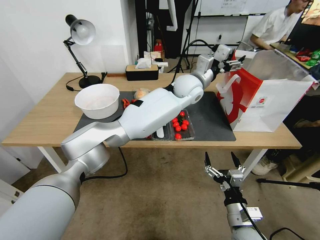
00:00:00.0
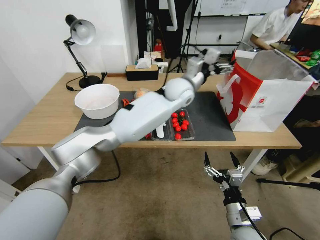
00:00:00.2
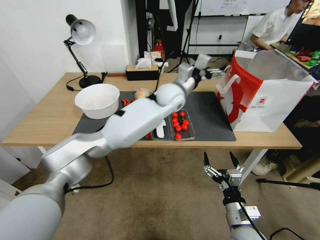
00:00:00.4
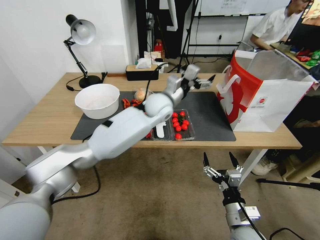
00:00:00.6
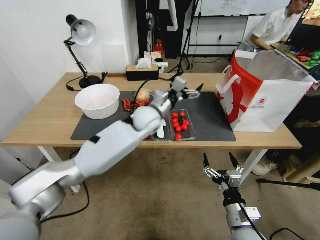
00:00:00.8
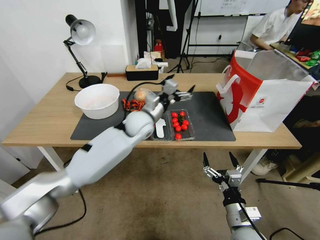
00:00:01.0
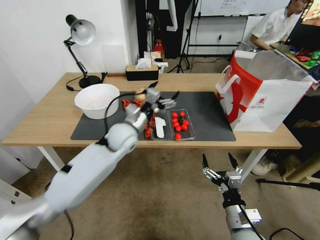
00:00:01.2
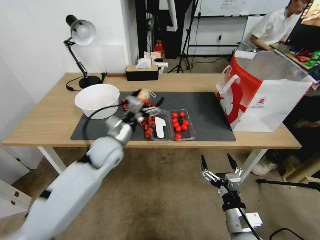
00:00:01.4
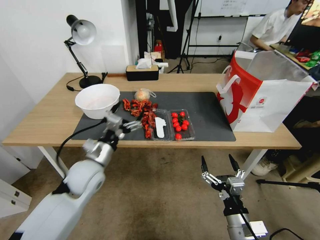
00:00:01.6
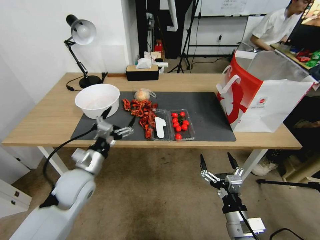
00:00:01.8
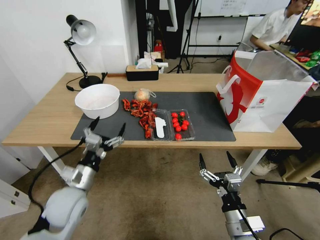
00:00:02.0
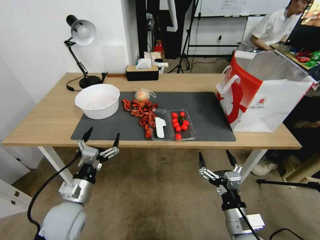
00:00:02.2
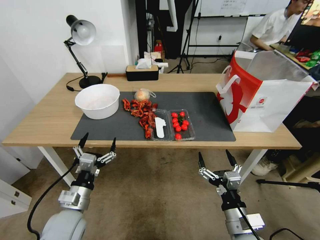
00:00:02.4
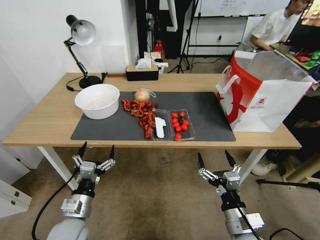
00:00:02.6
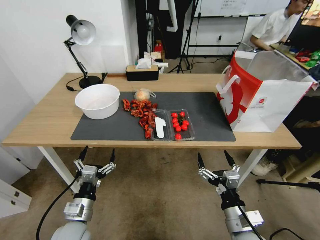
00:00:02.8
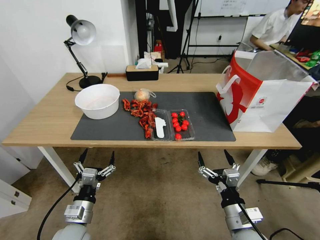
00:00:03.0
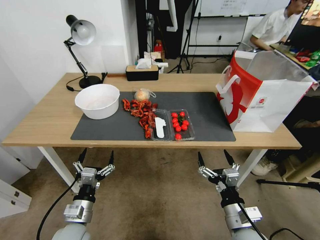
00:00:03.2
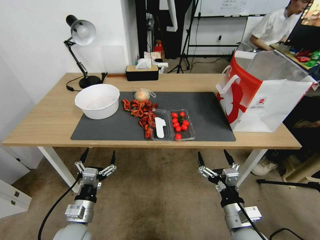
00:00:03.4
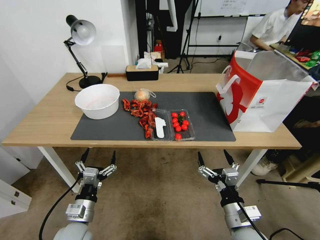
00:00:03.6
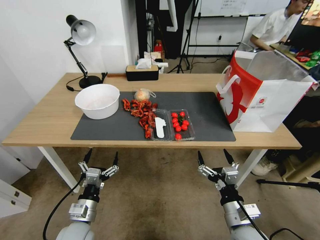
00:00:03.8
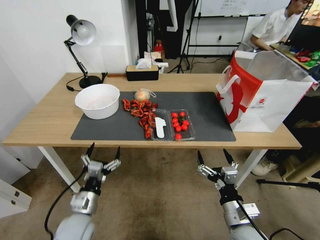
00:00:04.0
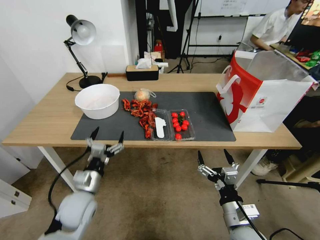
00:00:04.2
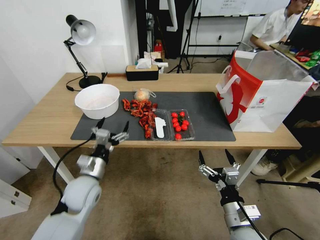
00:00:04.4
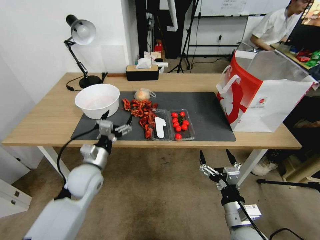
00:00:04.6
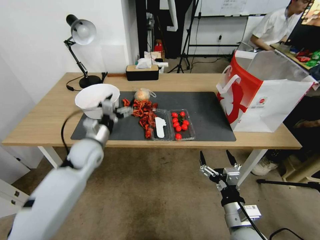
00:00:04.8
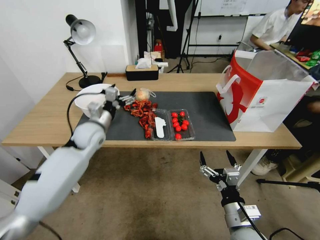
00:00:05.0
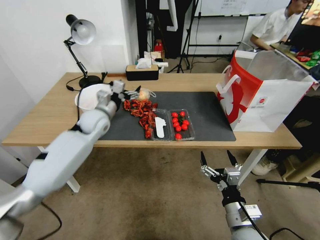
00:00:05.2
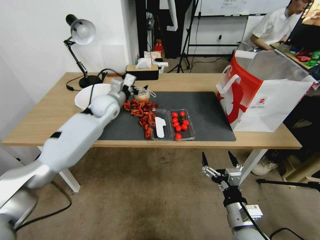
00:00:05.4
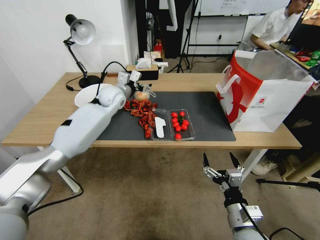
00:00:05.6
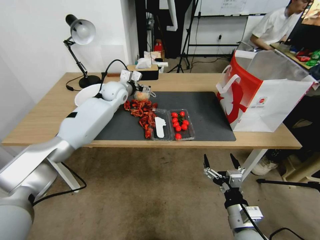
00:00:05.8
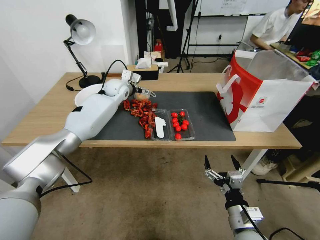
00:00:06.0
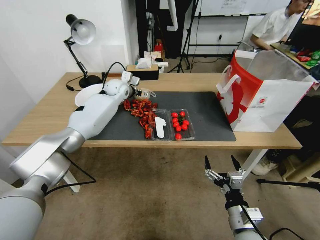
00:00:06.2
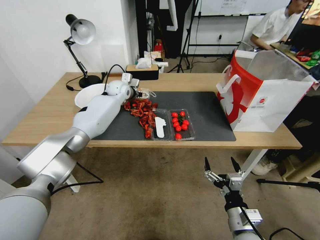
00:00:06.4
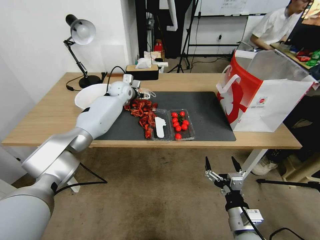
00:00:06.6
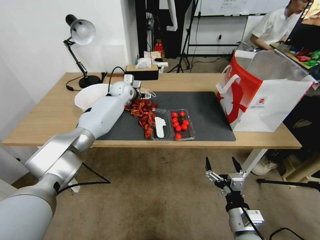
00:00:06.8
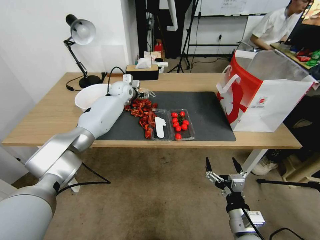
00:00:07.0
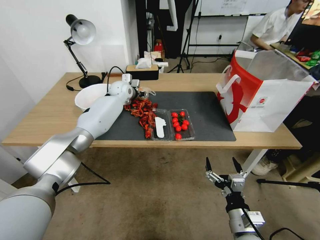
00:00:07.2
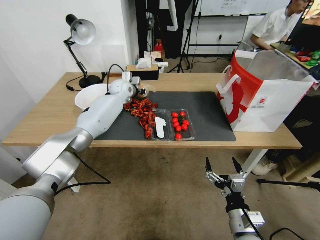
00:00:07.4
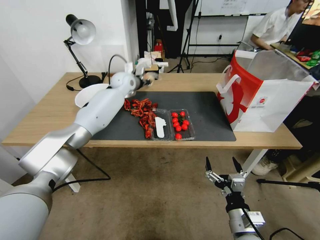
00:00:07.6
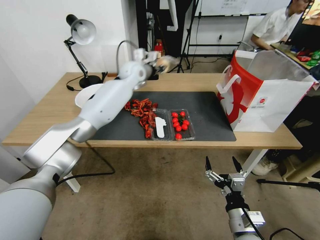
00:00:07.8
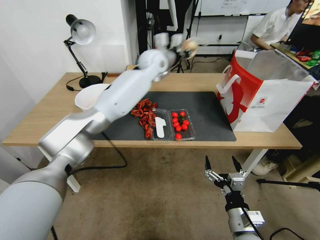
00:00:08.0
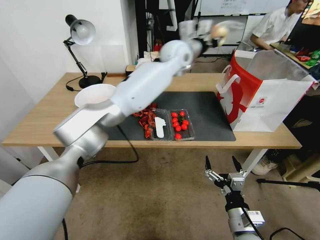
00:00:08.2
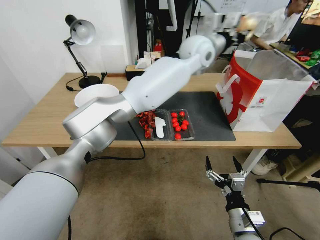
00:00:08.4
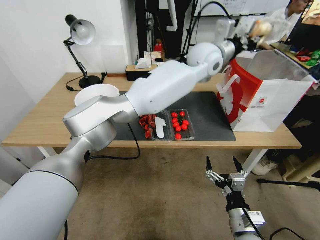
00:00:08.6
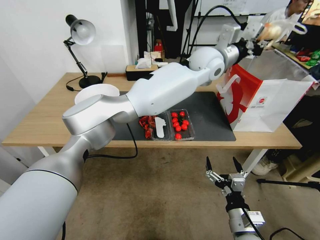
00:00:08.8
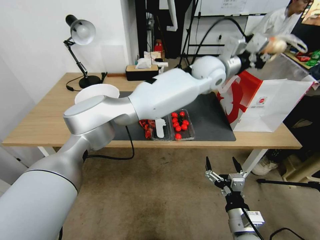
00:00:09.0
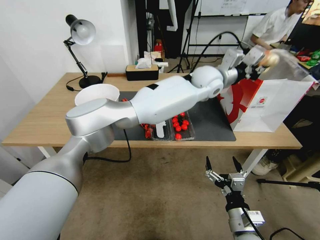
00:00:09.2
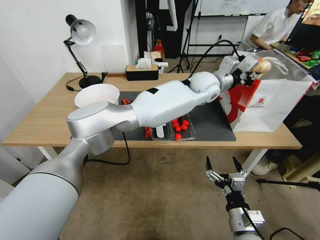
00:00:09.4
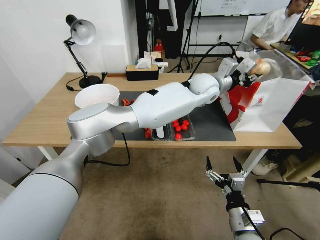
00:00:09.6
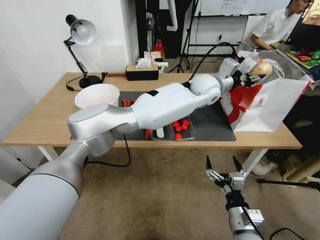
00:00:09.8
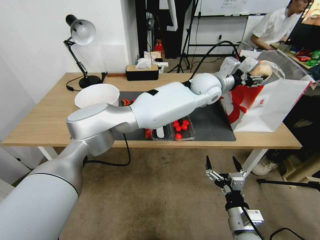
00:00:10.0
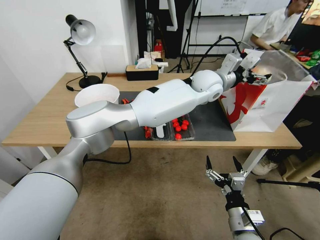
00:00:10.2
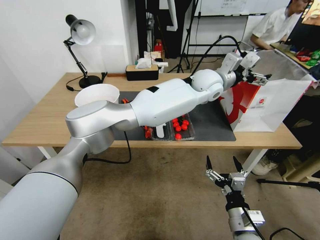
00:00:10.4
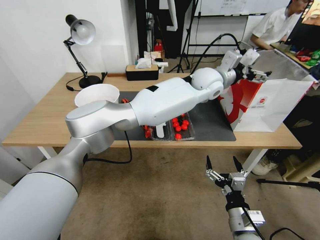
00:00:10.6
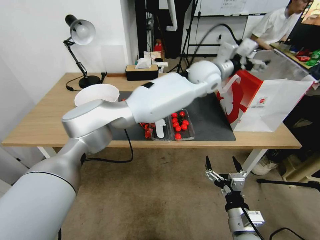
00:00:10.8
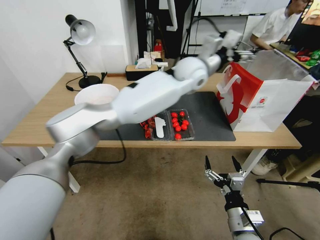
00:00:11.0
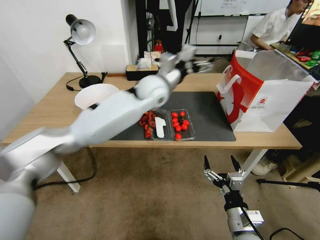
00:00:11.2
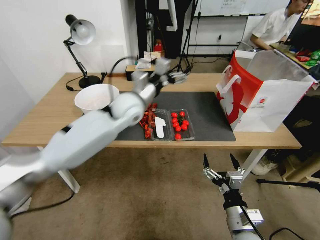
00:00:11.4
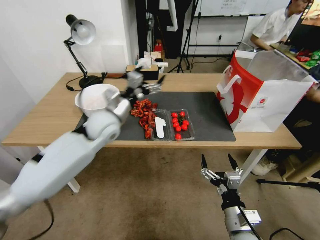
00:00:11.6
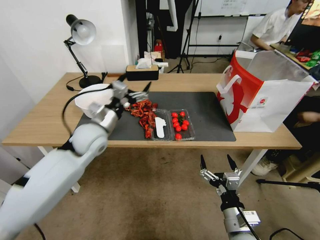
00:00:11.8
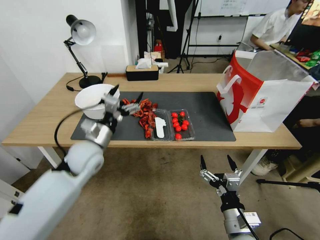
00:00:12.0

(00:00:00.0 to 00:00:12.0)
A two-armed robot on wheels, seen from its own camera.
00:00:00.0 - 00:00:01.6: The left gripper goes about 40 cm to the left, backward and downward.
00:00:01.6 - 00:00:03.0: The left gripper goes about 20 cm backward and downward.
00:00:03.0 - 00:00:04.4: The left gripper shifts approximately 15 cm forward and upward.
00:00:04.4 - 00:00:06.0: The left gripper goes approximately 35 cm forward.
00:00:06.0 - 00:00:07.6: The left gripper closes.
00:00:07.6 - 00:00:09.0: The left gripper is displaced to the right by some 30 cm.
00:00:09.0 - 00:00:10.4: The left gripper opens up.
00:00:10.4 - 00:00:12.0: The left gripper heads to the left, backward and downward, covering roughly 40 cm.

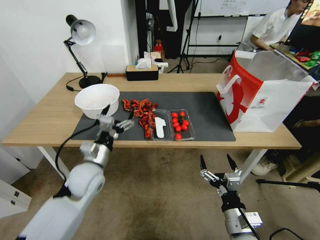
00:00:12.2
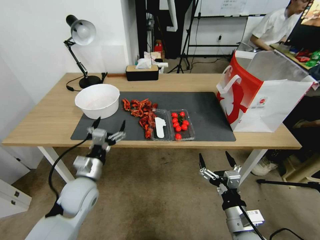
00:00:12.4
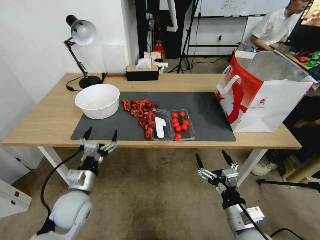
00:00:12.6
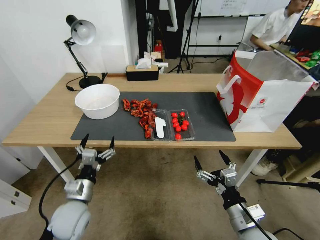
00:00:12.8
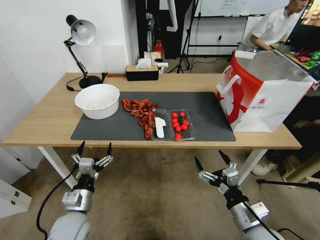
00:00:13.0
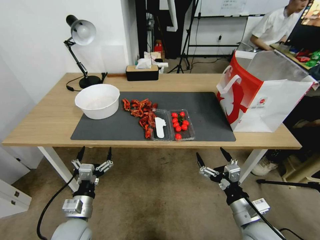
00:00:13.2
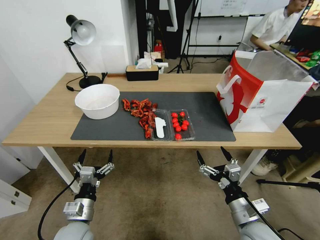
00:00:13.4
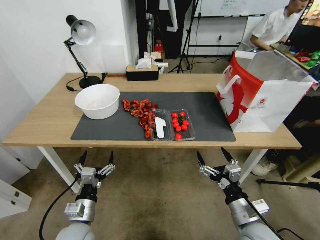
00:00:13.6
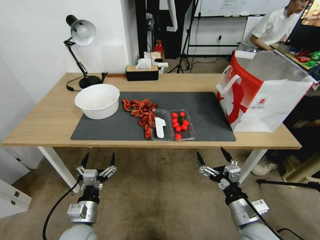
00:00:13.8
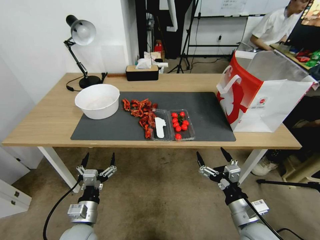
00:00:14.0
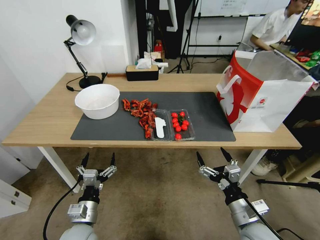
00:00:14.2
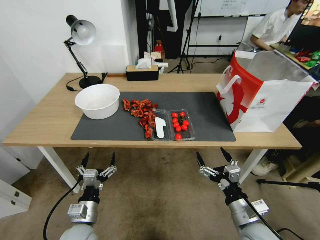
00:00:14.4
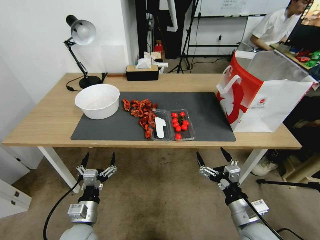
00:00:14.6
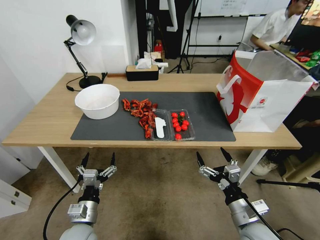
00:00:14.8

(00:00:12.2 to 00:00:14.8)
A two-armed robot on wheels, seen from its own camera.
00:00:12.2 - 00:00:13.4: The left gripper goes about 15 cm backward and downward.
00:00:13.4 - 00:00:14.8: The grippers move only a little.
